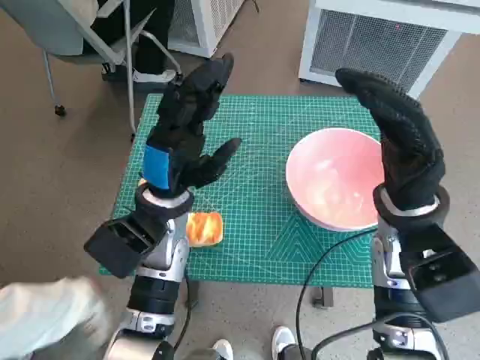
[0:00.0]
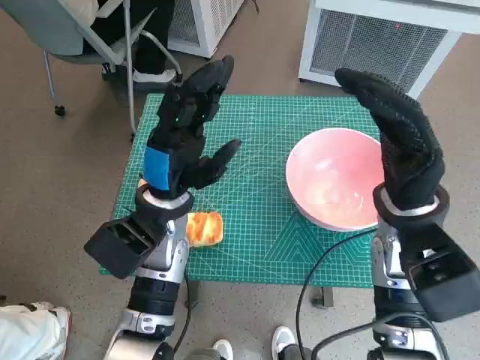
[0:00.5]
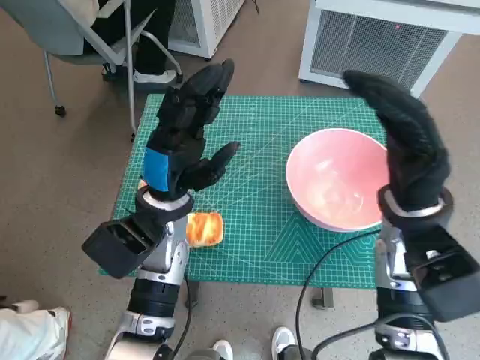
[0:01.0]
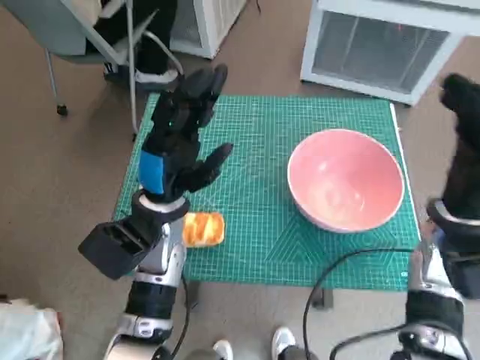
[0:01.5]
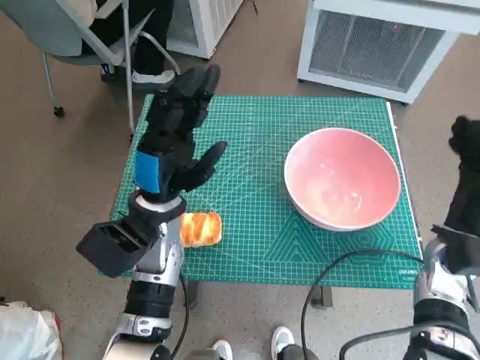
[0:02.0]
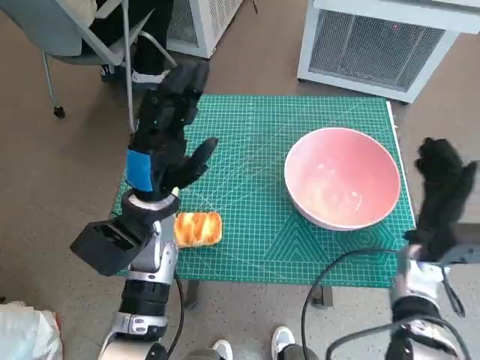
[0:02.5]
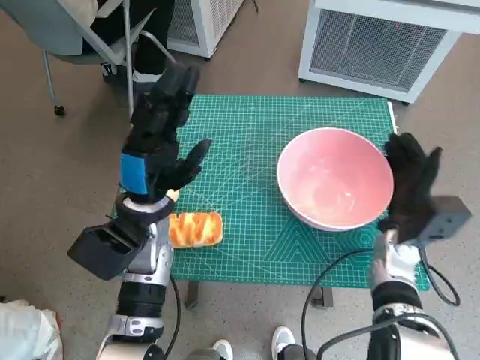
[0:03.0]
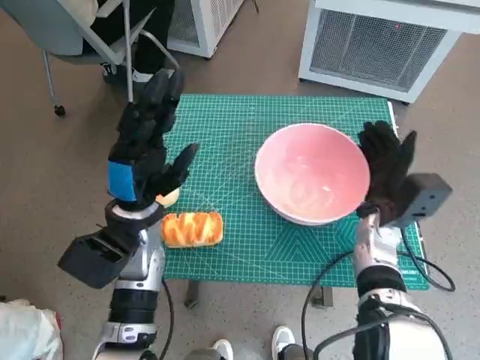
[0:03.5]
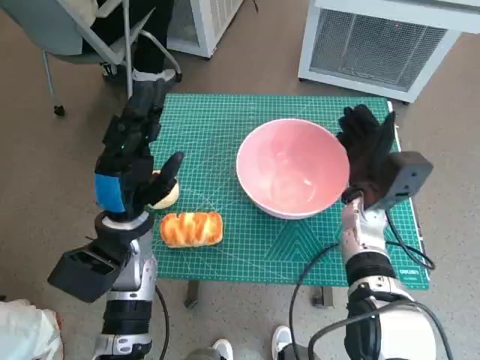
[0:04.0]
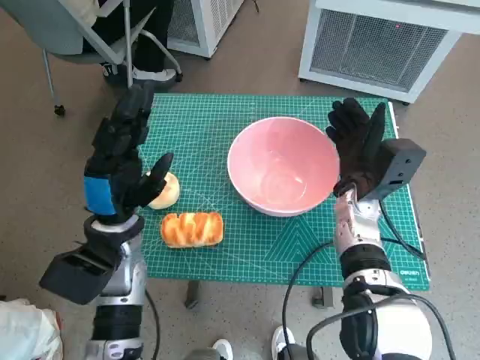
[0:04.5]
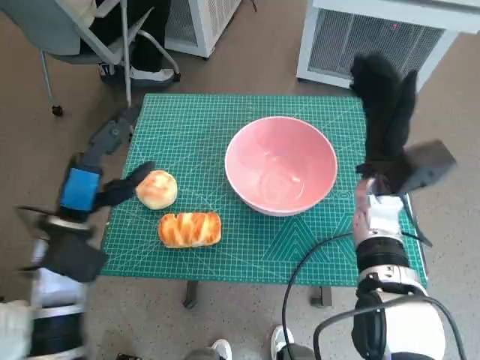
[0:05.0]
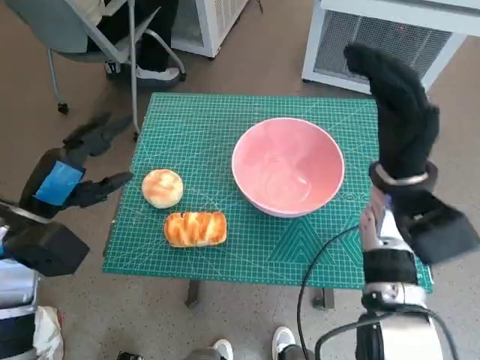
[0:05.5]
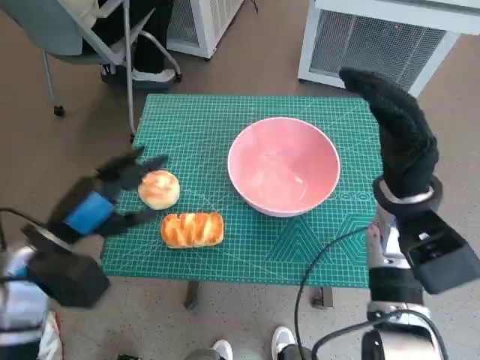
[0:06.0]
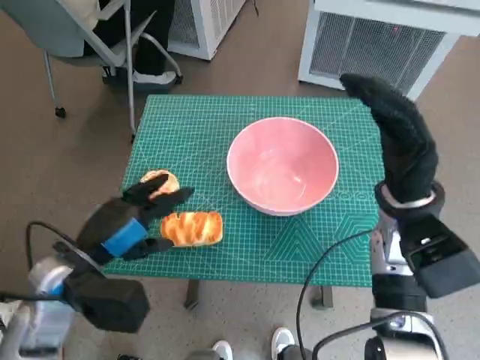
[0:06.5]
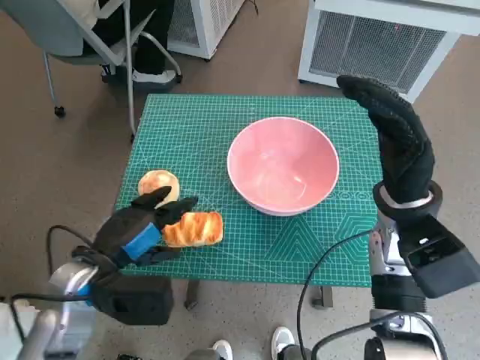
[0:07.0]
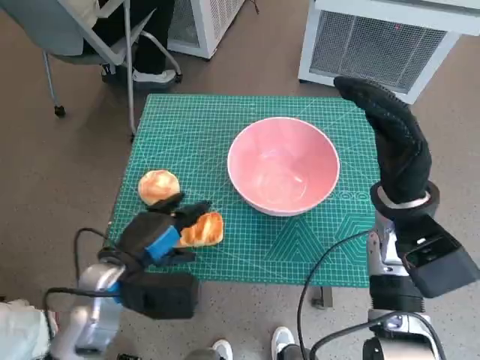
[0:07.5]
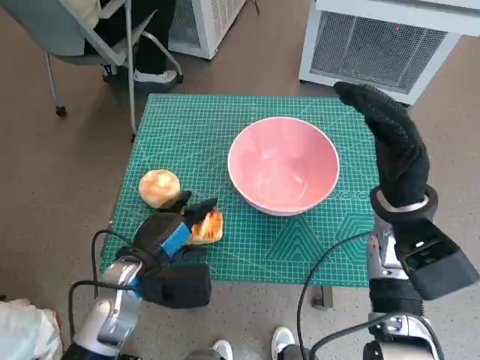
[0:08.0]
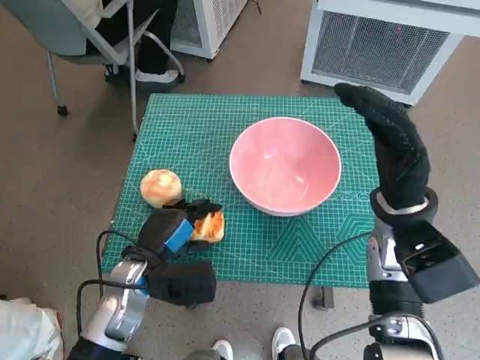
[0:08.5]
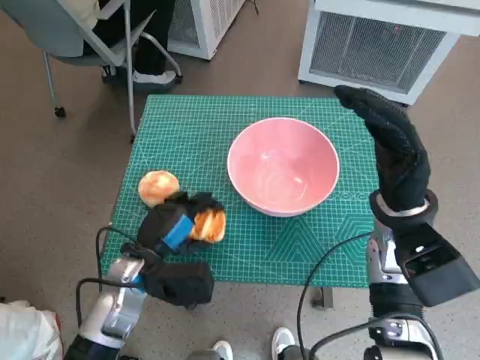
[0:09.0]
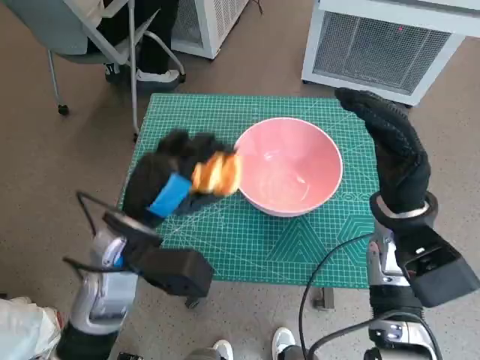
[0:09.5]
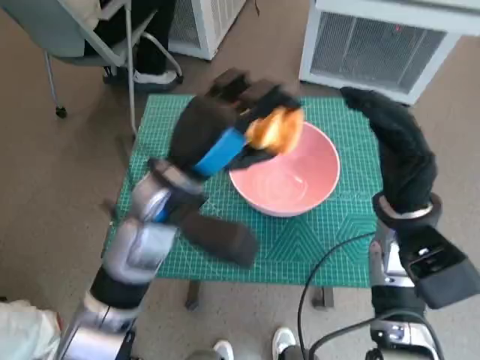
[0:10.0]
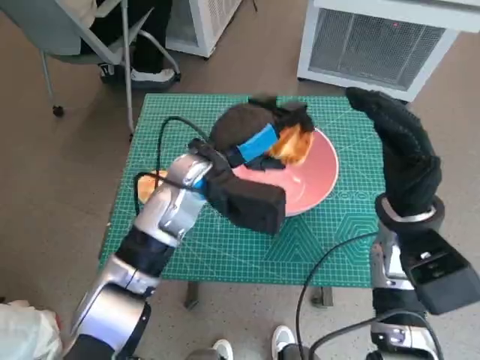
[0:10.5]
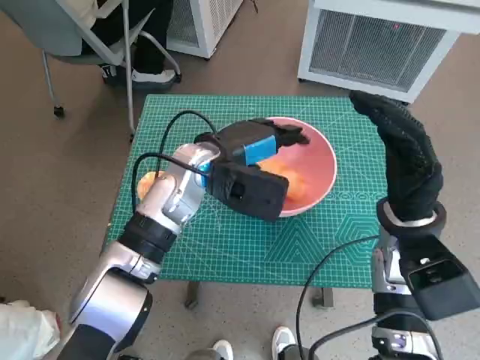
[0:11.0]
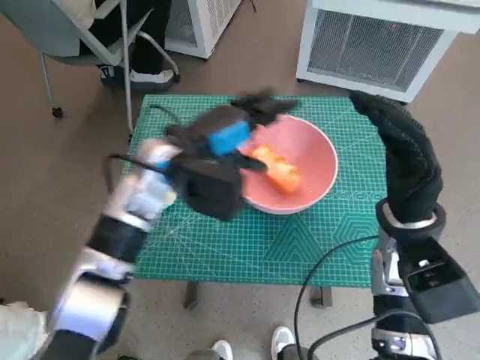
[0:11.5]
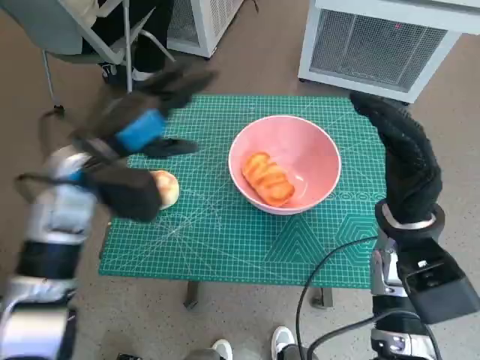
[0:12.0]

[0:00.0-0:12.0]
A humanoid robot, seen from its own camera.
Task of the whole recording: Push the bowl to the center of the table and put the bread into the bowl.
Step, 0:00.0 to 0:04.5: Move the pink bowl to the center of table with right hand.
Step, 0:05.0 to 0:08.5: Grasp the long bread with left hand.
Step, 0:09.0 to 0:11.0: Place the long bread in pink bowl with left hand.
0:02.0 to 0:04.0: The right hand travels to the left and forward by roughly 10 cm.
0:04.0 to 0:06.0: The left hand shifts approximately 10 cm to the left, while the right hand travels upward by roughly 10 cm.
0:06.0 to 0:08.0: The left hand goes about 10 cm to the right and downward.
0:08.0 to 0:10.0: The left hand goes about 15 cm upward, to the right and forward.
0:10.0 to 0:12.0: The left hand goes approximately 10 cm to the left.

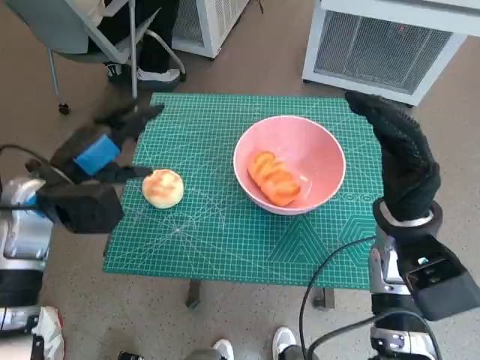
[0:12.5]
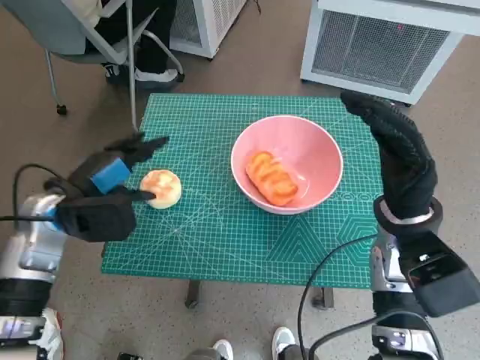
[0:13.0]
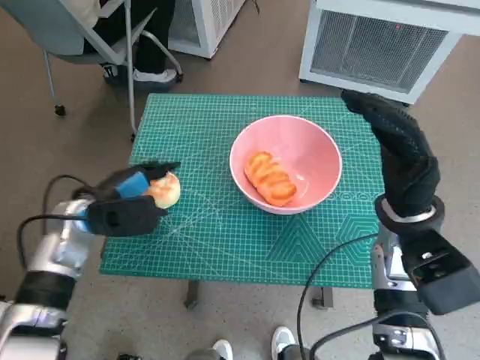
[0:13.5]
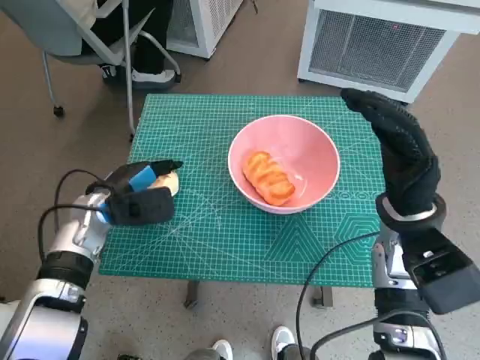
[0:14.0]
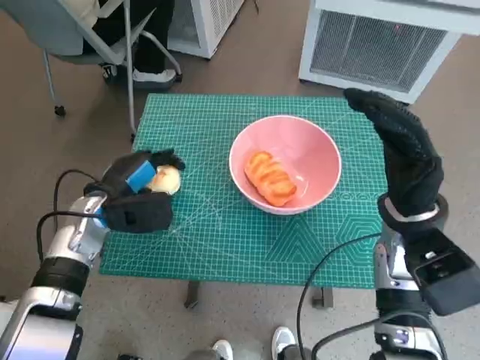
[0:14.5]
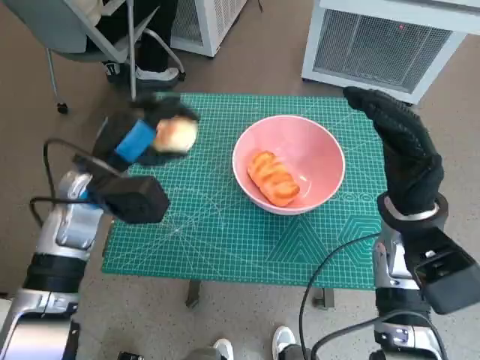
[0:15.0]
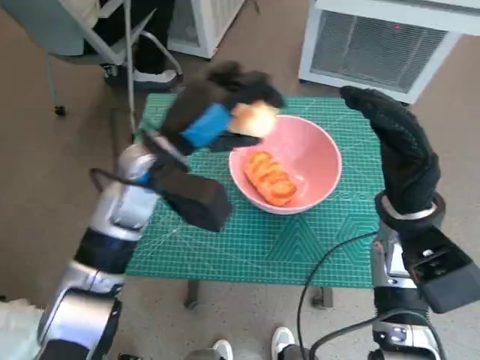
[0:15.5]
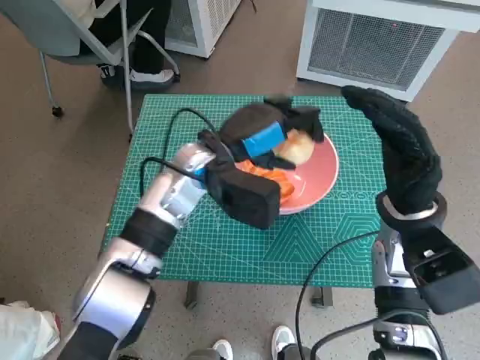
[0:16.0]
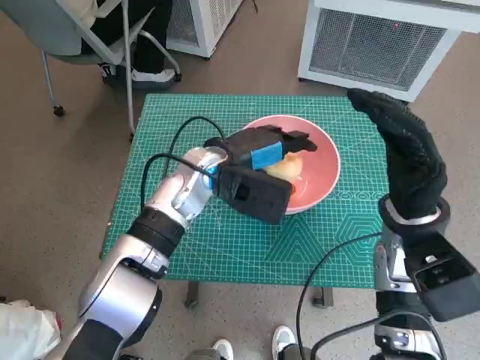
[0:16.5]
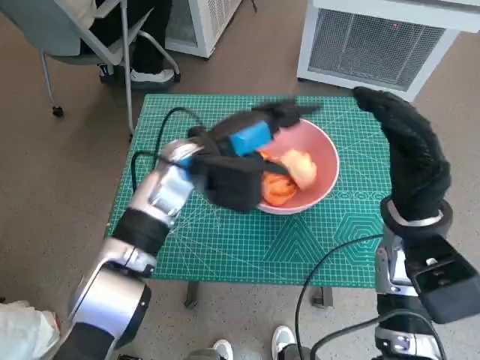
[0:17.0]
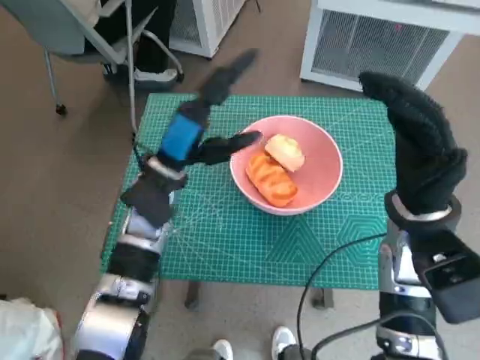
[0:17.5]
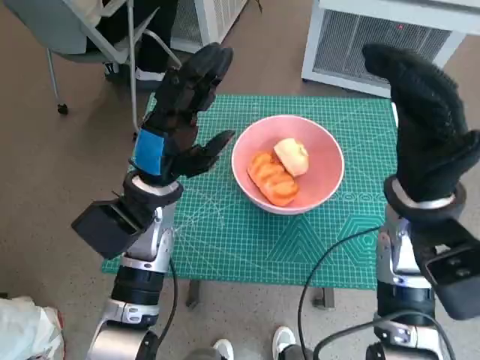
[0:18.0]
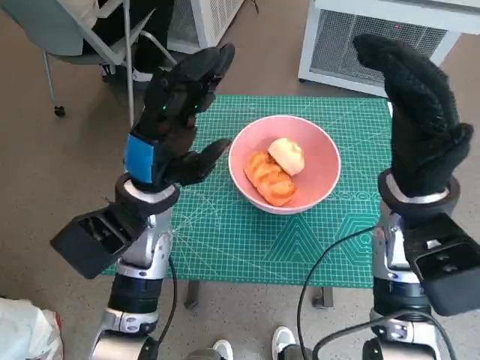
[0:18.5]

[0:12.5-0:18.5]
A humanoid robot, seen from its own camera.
Task of the whole recording: Push the bowl to the center of the table and put the bread into the bowl.
Step, 0:12.5 to 0:14.0: Grasp the round bread with left hand.
Step, 0:14.5 to 0:17.0: Place the round bread in pink bowl with left hand.
0:12.5 to 0:14.5: The left hand shifts some 10 cm downward.
0:14.5 to 0:16.5: The left hand moves to the right, about 15 cm.
0:16.5 to 0:18.5: The right hand moves approximately 5 cm; the left hand is displaced to the left and backward by about 10 cm.

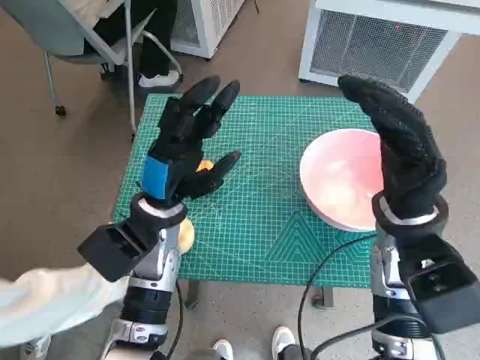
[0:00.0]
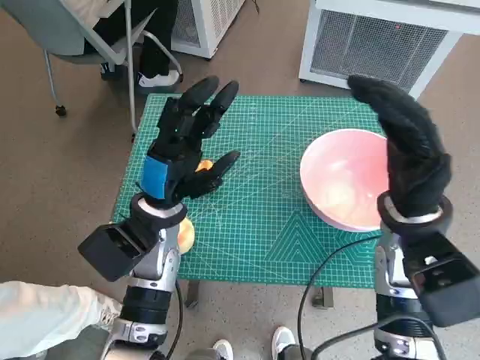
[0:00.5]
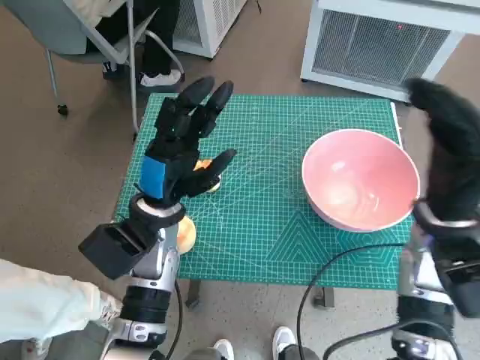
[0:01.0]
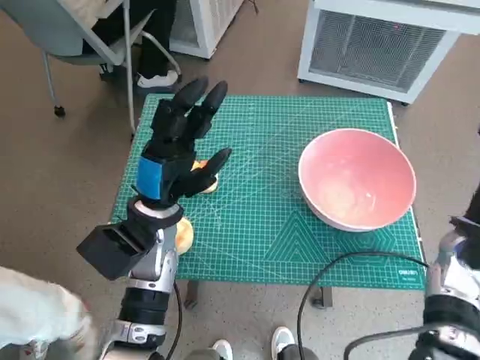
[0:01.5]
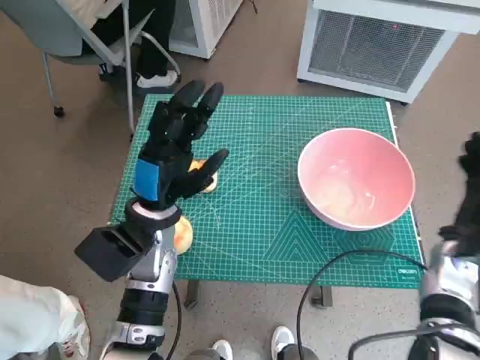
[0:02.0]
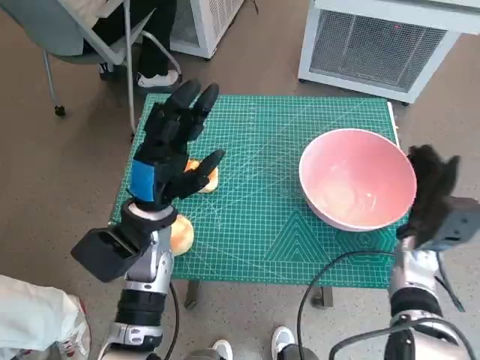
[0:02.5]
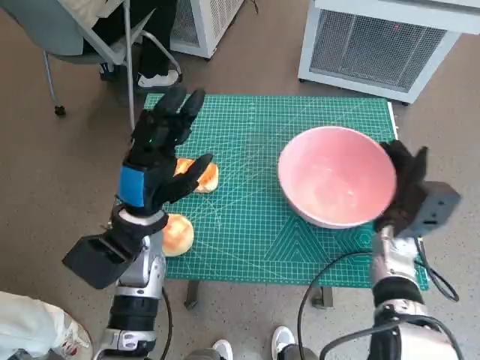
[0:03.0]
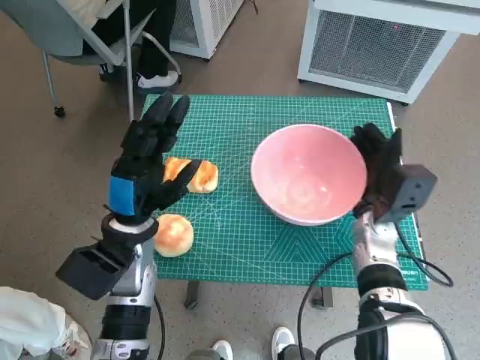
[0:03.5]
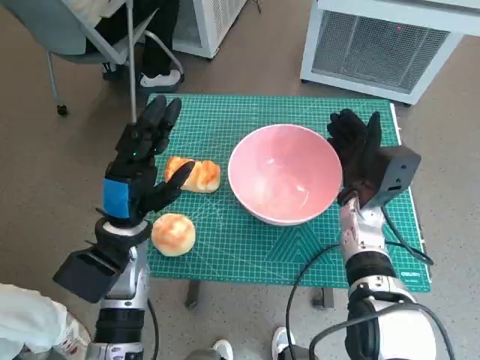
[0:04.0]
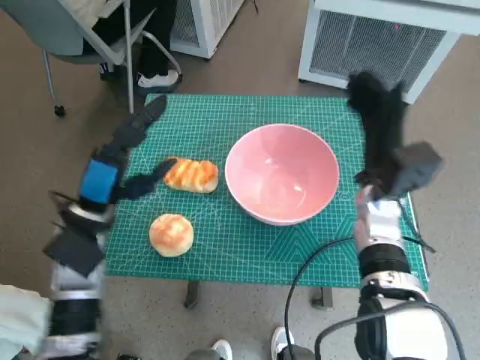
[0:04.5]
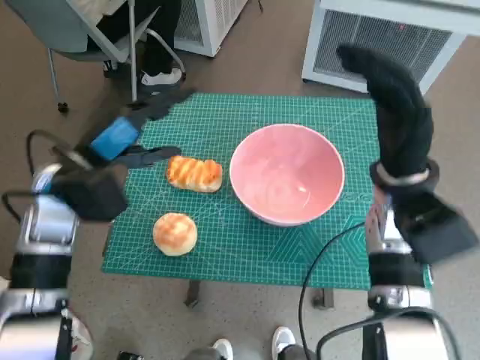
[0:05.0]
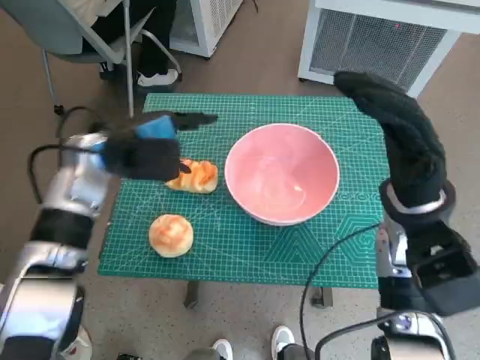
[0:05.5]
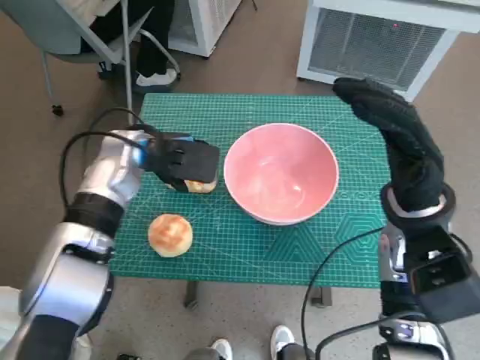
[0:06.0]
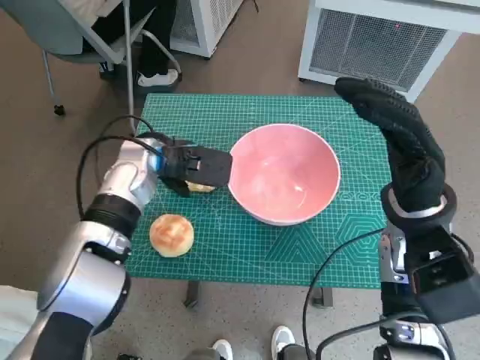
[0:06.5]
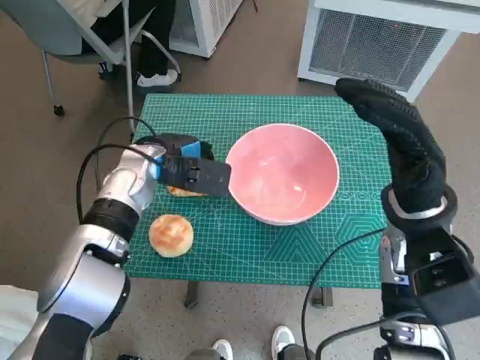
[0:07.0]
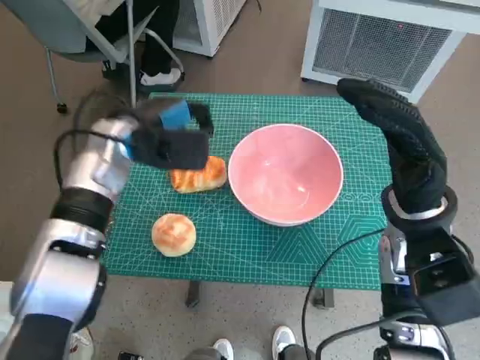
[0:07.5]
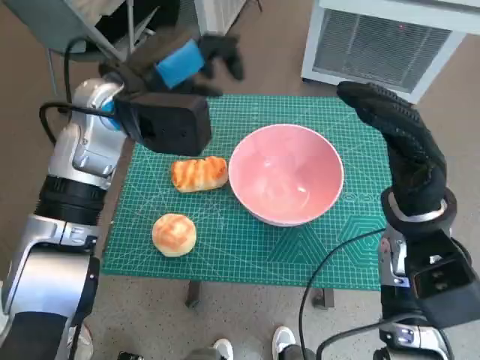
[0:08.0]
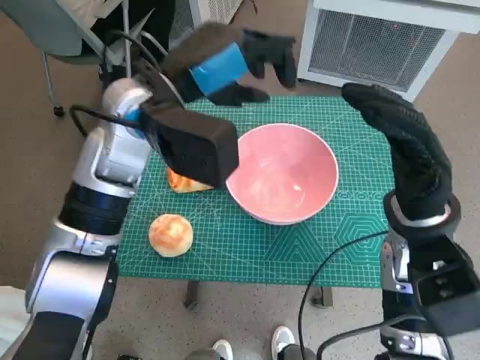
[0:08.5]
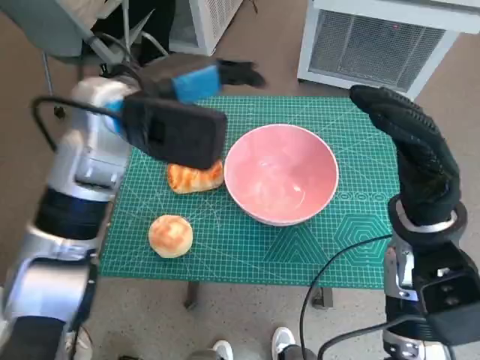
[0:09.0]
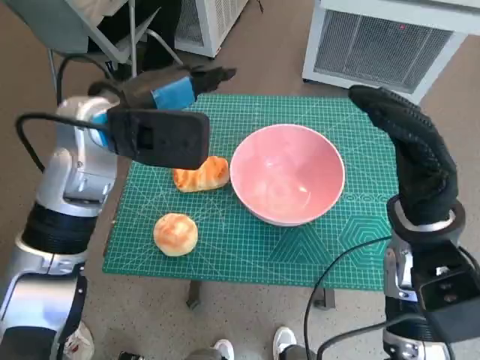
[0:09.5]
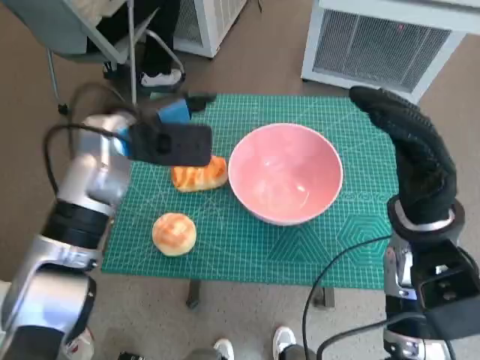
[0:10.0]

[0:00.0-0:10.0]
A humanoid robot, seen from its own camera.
Task of the whole recording: Push the bowl to the center of the table and put the bread into the bowl.
Step, 0:00.0 to 0:04.0: Move the pink bowl to the center of table with right hand.
0:02.0 to 0:04.0: The right hand travels to the left and forward by roughly 15 cm.
0:04.0 to 0:06.0: The right hand goes some 10 cm upward and backward; the left hand goes approximately 15 cm forward and upward.
0:06.0 to 0:08.0: The left hand moves upward, roughly 10 cm.
